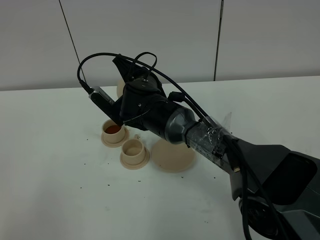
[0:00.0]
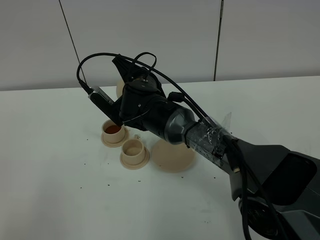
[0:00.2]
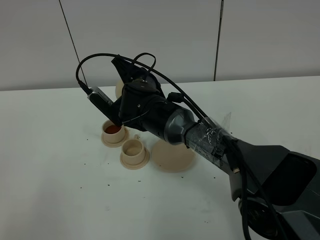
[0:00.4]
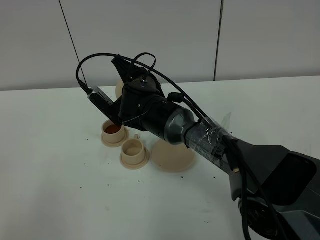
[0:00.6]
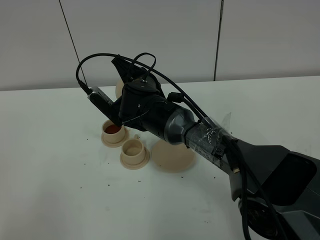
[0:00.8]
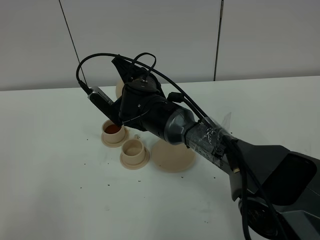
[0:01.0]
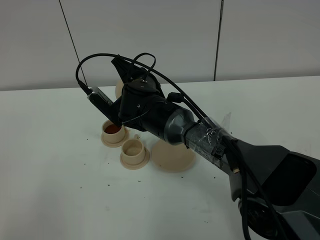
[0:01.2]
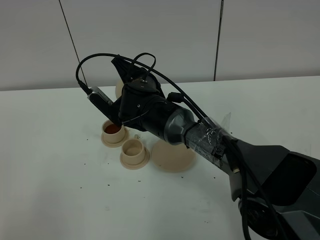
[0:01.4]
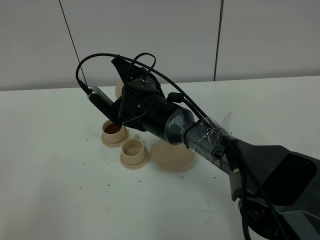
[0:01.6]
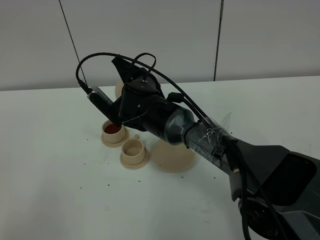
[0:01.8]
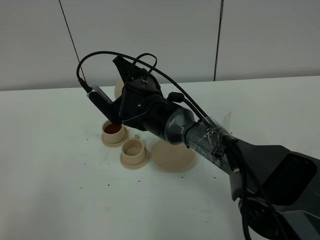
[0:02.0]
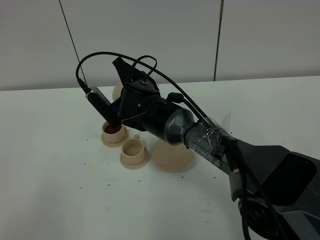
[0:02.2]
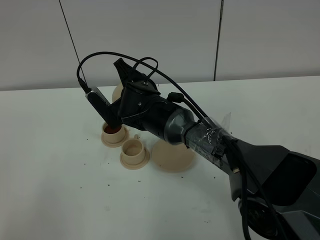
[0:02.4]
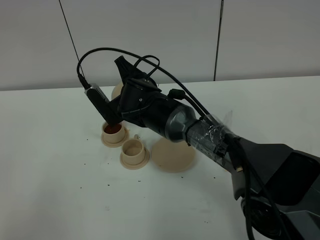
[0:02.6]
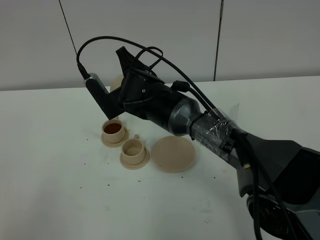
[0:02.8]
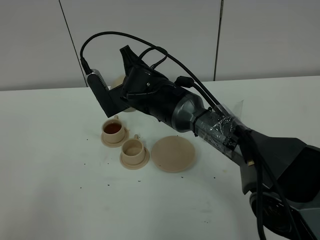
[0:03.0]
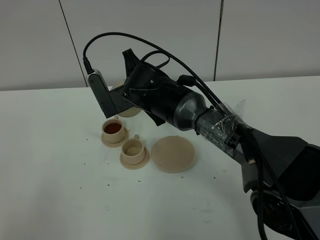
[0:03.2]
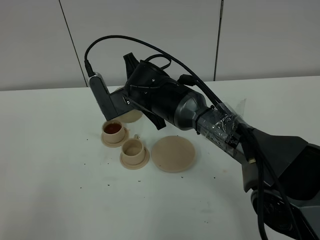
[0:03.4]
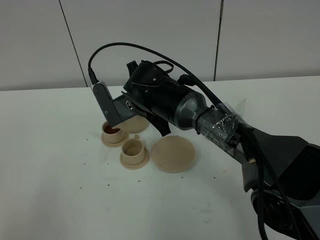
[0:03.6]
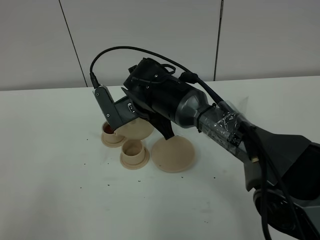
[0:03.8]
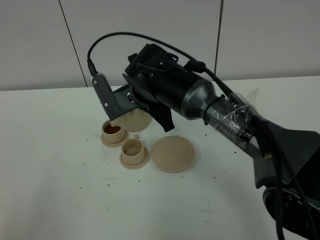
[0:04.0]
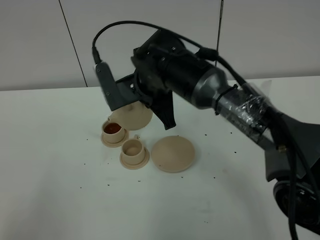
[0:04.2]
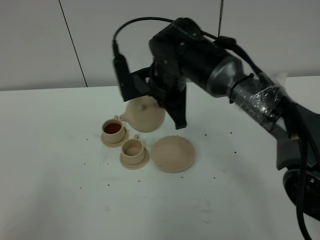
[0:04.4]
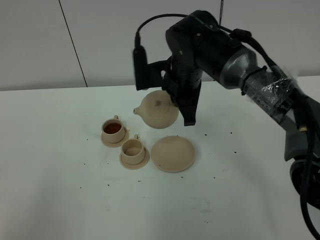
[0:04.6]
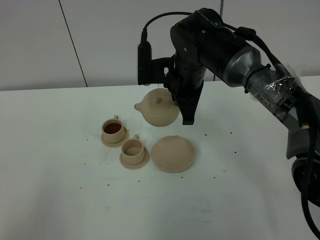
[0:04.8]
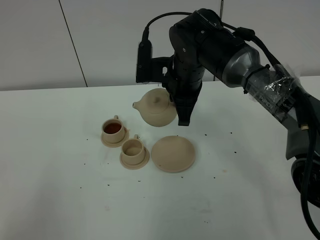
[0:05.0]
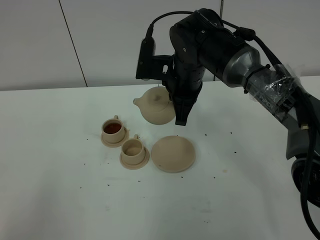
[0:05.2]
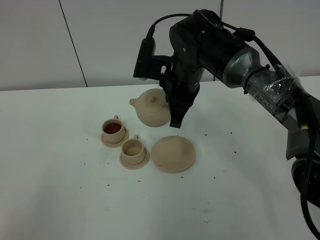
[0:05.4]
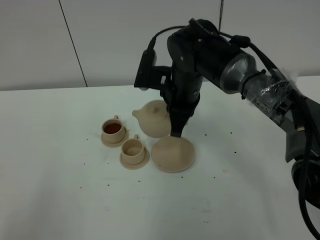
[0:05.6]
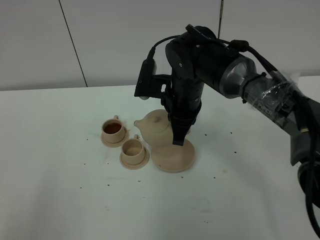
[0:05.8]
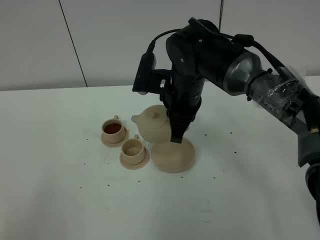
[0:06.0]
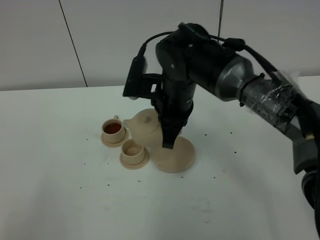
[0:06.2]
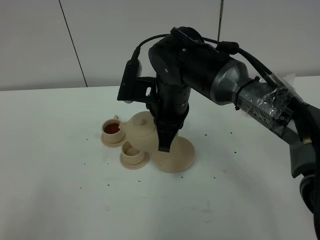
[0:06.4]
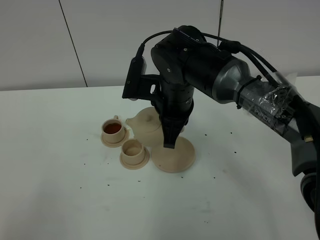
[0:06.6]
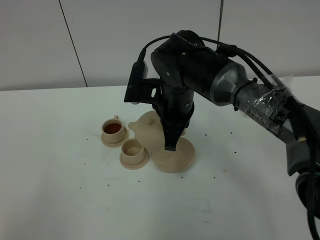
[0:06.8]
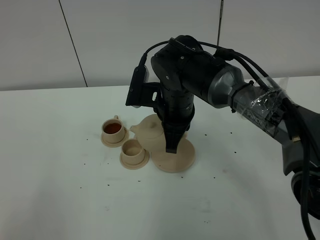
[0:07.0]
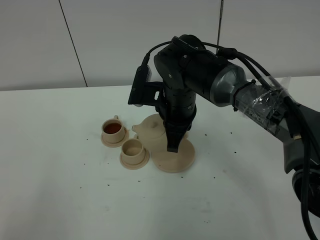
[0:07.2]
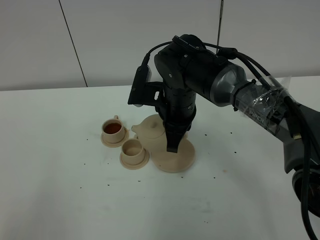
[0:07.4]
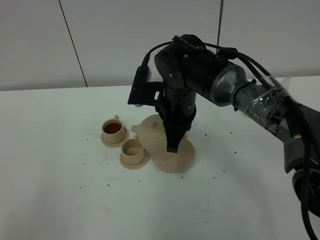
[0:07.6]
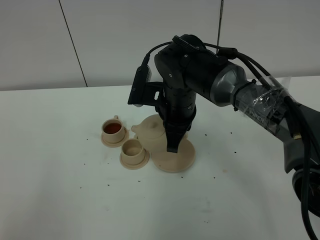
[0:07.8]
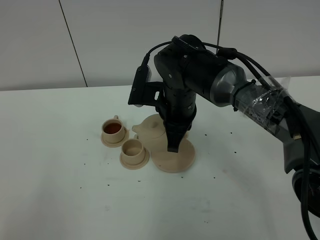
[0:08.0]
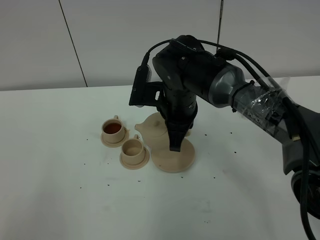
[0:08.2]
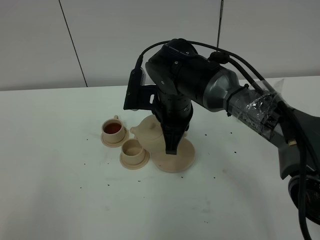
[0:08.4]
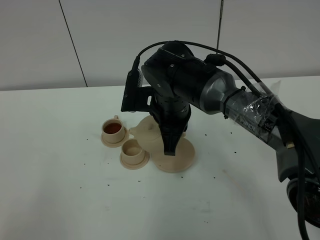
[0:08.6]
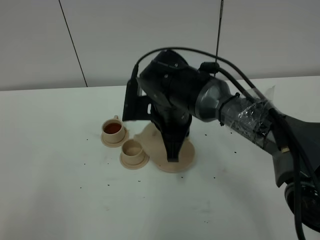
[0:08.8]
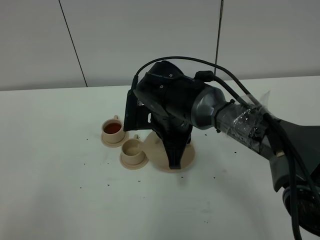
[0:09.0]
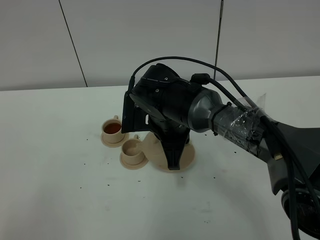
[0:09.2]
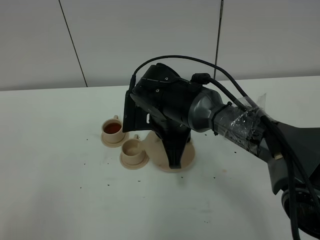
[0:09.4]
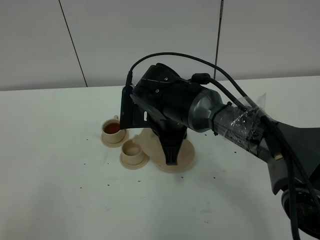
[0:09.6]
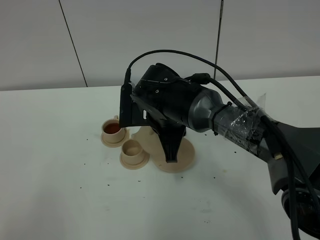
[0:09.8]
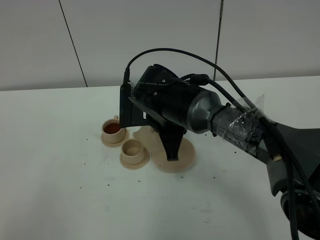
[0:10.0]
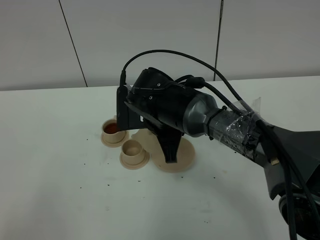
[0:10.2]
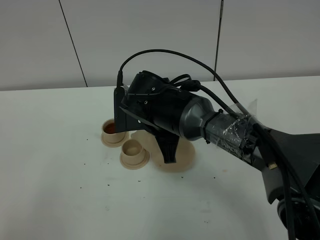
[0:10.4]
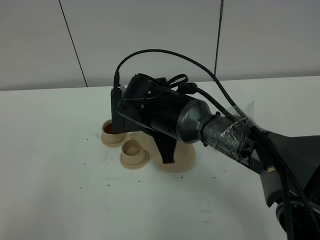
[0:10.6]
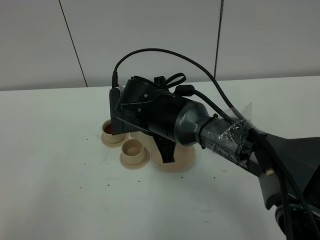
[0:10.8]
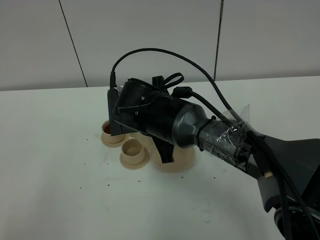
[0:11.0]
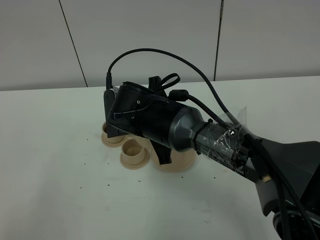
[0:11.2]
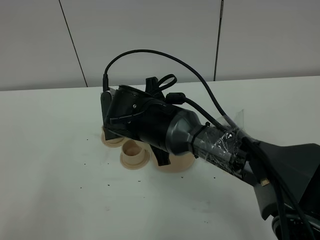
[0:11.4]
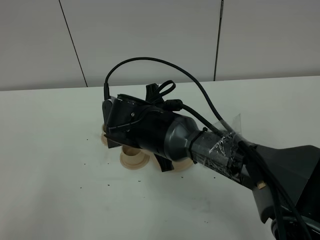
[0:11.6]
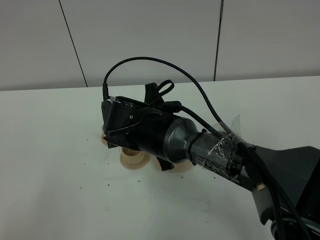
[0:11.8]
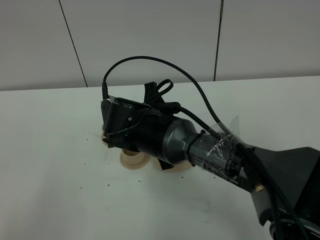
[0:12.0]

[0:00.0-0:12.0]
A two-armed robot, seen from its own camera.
Task of the whole recording: grasp the brown teapot and pour the tea into the two brown teacups one by one, put the brown teapot back in its original place.
0:00.0 to 0:01.6: Neither gripper changes place.
0:03.0 to 0:04.4: The right gripper goes some 5 cm to the right.
0:06.0 to 0:09.0: The grippers stay close to where they were, moving slightly.
0:09.0 to 0:10.4: There are only small adjustments of the grippers.
0:10.4 to 0:12.0: The grippers move only a little.

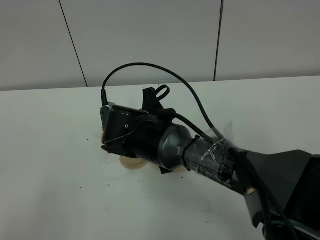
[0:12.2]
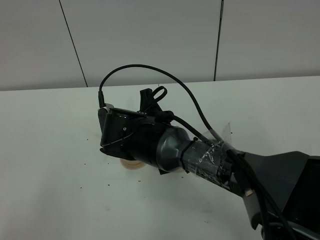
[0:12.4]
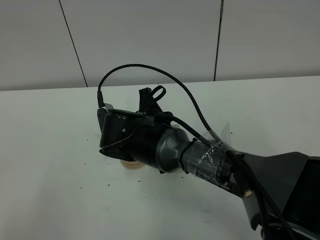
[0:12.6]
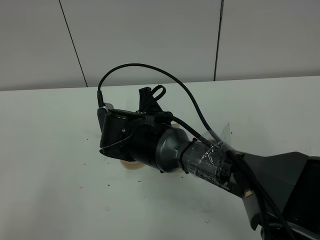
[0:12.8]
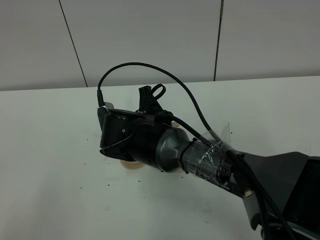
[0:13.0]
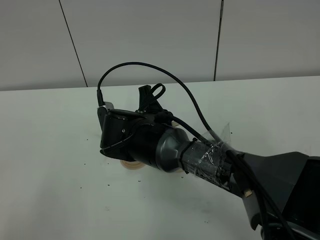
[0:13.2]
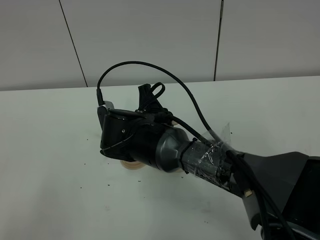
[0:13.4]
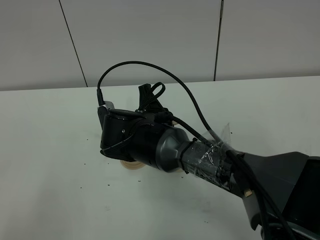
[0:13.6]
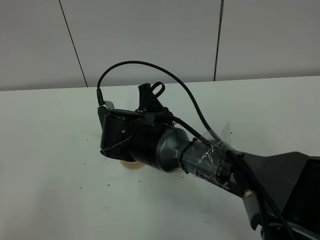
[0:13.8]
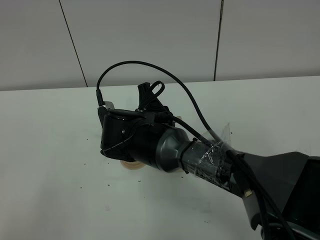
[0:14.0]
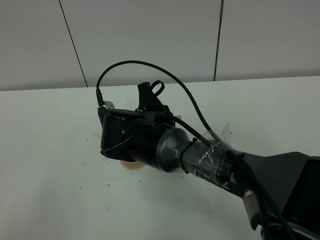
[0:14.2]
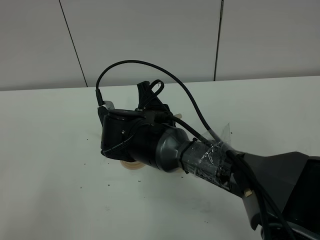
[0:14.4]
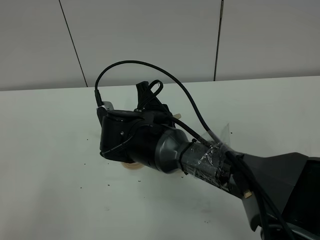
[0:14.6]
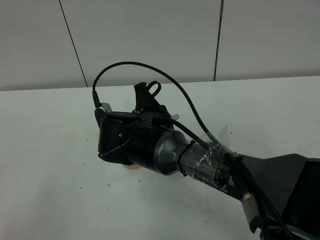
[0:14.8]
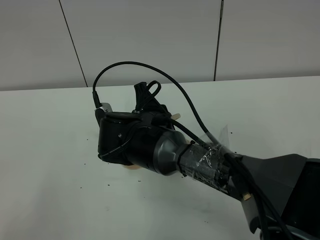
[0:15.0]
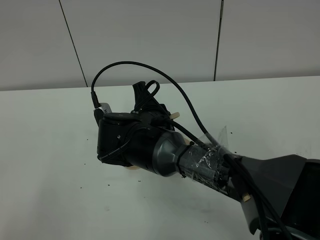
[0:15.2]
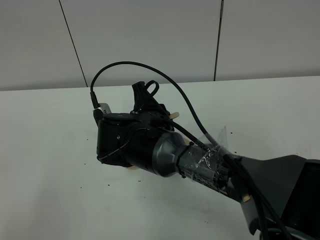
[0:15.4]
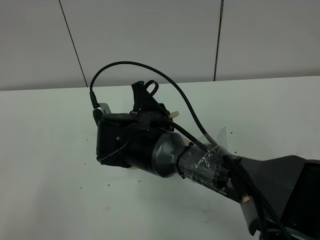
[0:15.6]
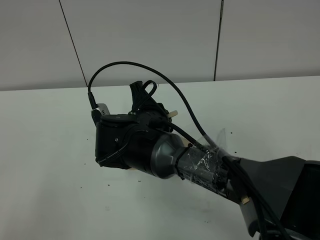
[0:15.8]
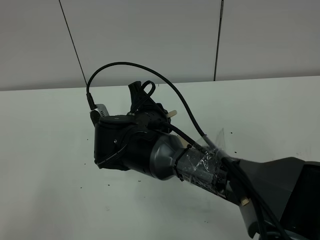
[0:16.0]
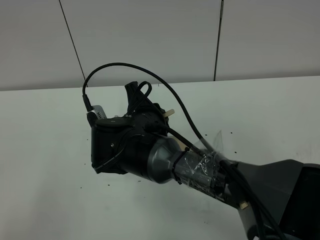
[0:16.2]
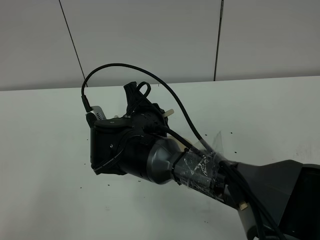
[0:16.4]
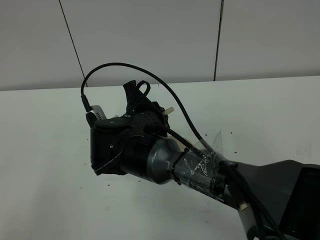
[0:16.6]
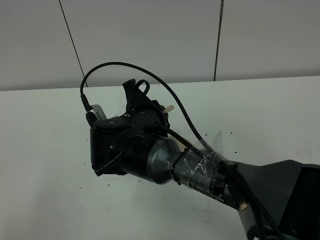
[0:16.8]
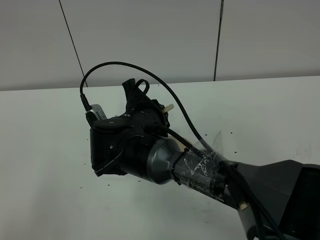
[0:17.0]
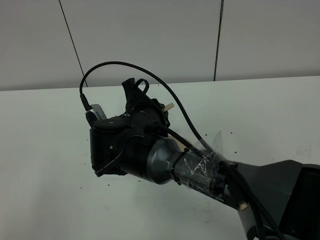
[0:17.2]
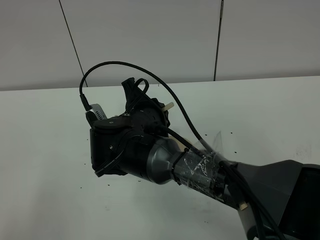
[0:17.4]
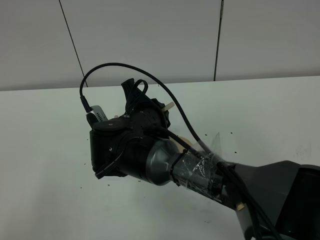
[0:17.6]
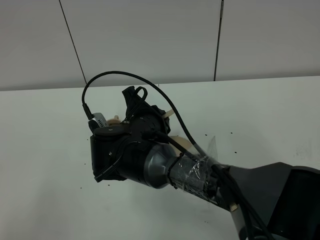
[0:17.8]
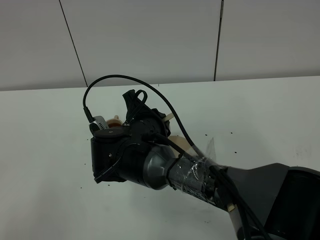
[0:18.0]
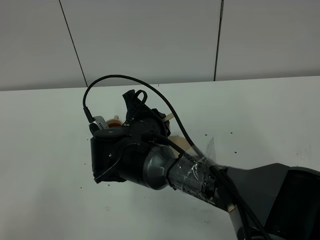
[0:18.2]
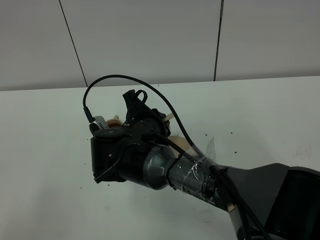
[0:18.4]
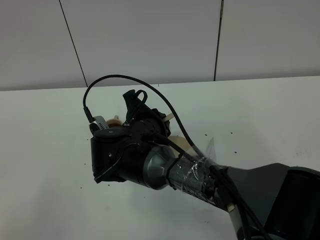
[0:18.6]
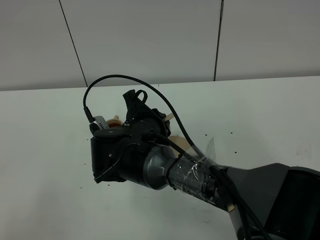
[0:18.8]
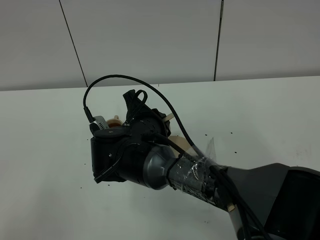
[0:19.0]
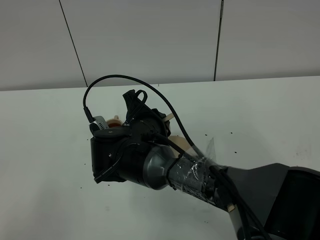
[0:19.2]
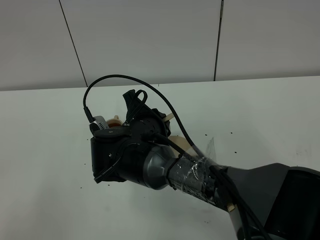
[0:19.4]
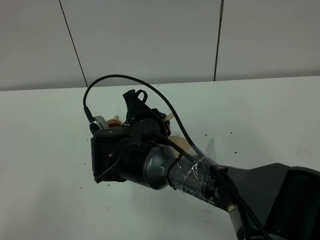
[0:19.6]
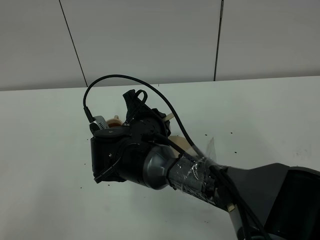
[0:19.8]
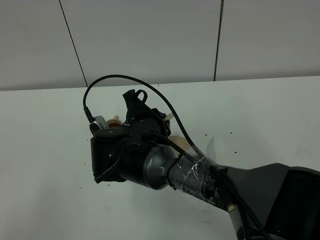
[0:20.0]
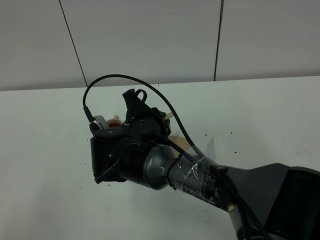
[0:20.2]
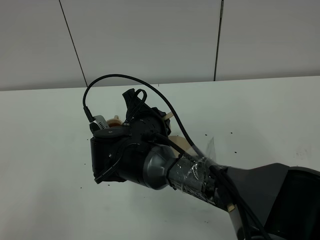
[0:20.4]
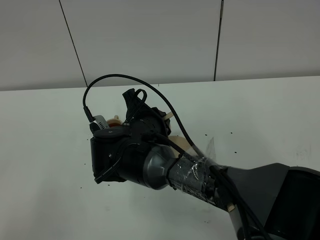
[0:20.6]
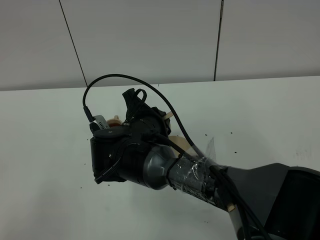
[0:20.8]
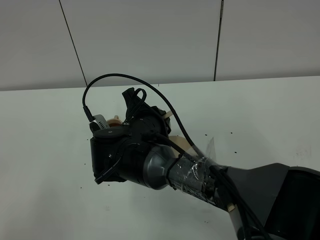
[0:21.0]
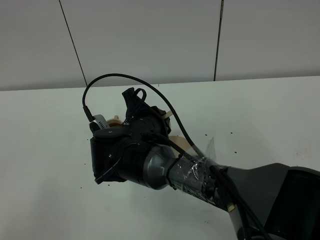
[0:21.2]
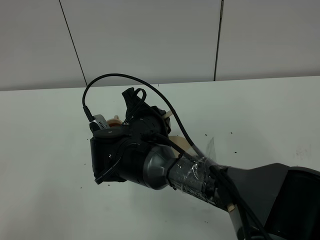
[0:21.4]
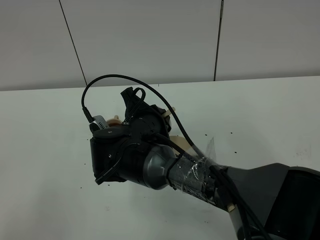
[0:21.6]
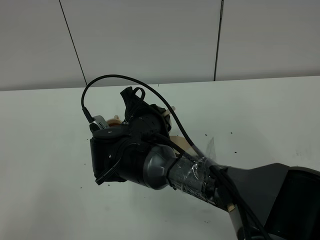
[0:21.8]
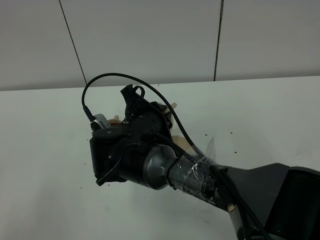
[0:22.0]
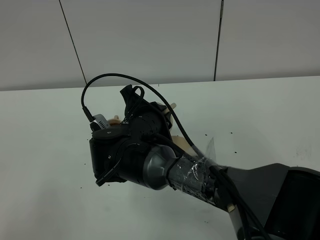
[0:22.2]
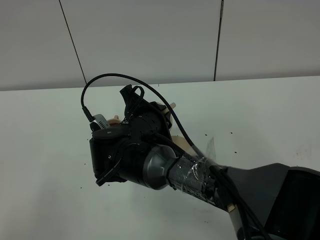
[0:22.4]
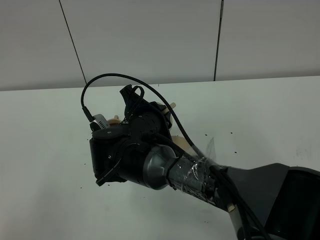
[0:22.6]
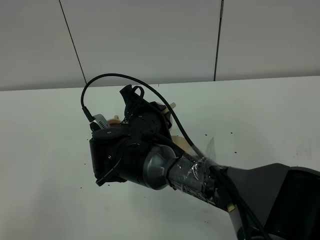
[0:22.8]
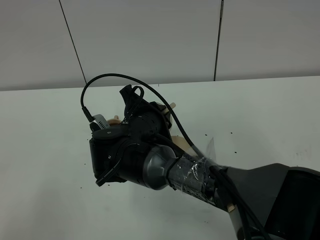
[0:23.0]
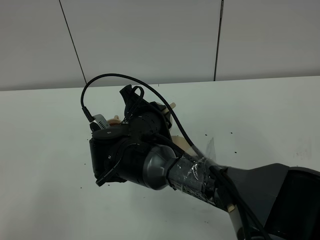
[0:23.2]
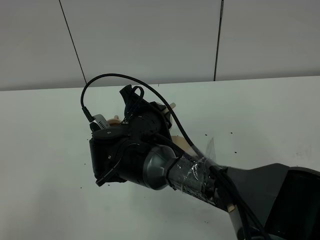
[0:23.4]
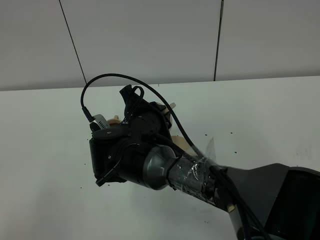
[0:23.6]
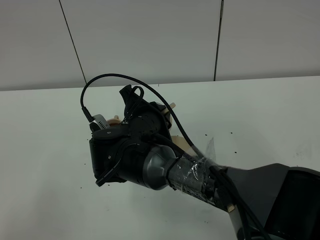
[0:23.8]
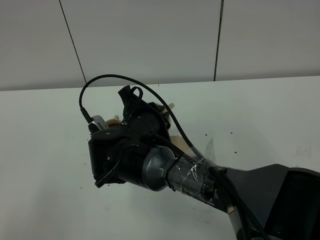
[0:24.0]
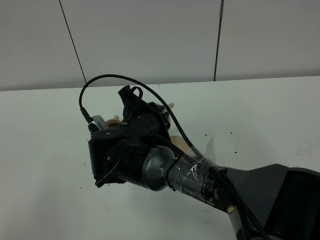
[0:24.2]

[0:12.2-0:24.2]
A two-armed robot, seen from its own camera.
Task of the whole recording: grasp the brown teapot and pour the tea into the two brown teacups one by one, put the brown teapot back in its original place.
0:12.2 to 0:16.6: The grippers move only a little.
0:16.6 to 0:18.2: The grippers move only a little.
0:18.2 to 0:21.2: Both grippers stay put.
0:21.2 to 0:22.6: Both grippers stay put.
0:22.6 to 0:24.2: Neither gripper changes place.
